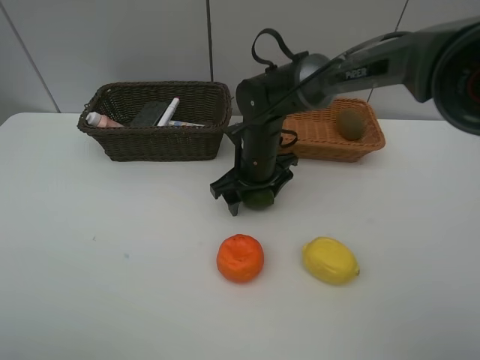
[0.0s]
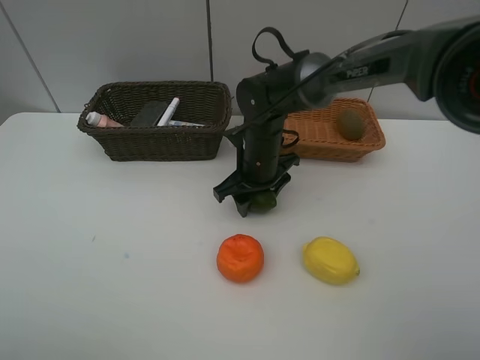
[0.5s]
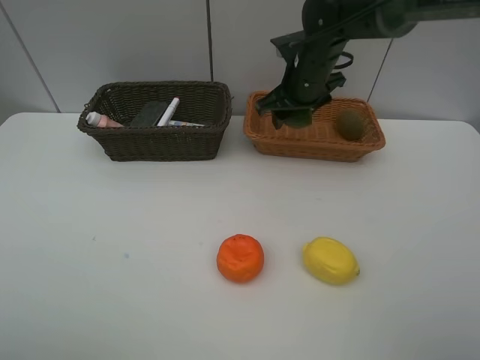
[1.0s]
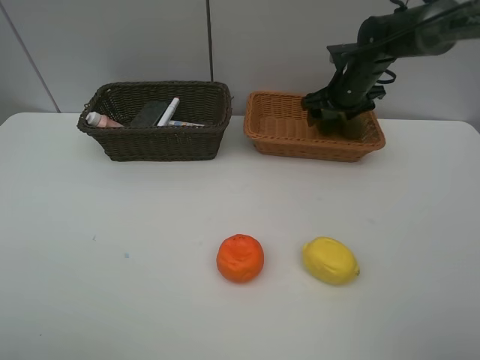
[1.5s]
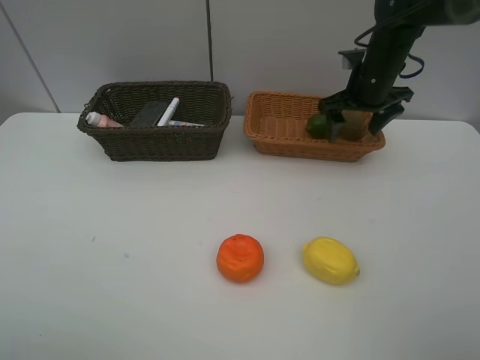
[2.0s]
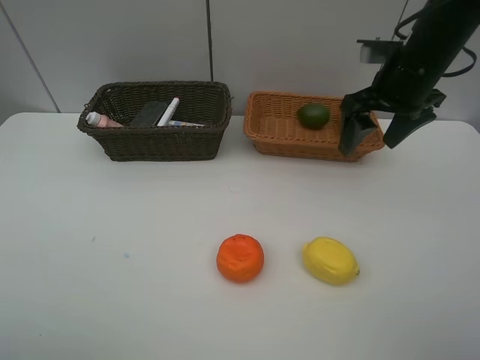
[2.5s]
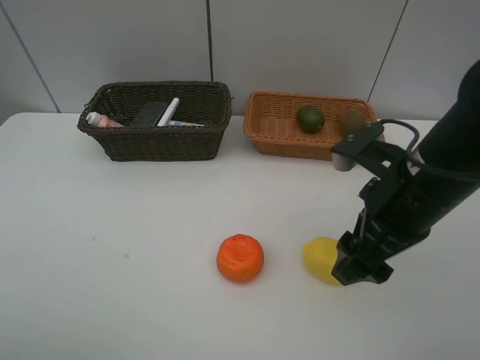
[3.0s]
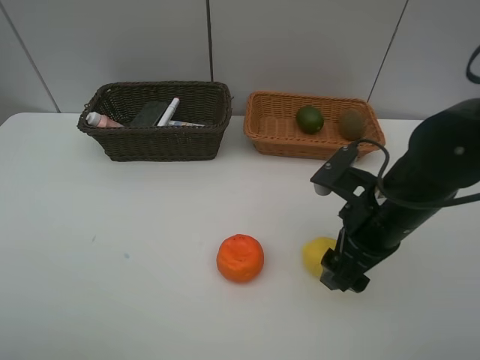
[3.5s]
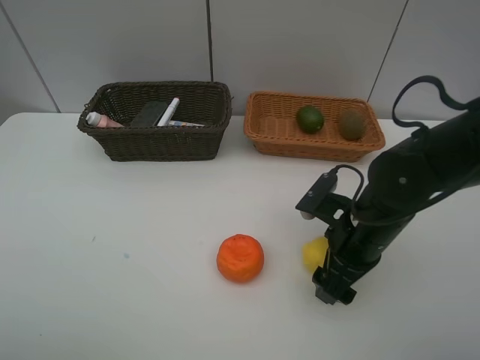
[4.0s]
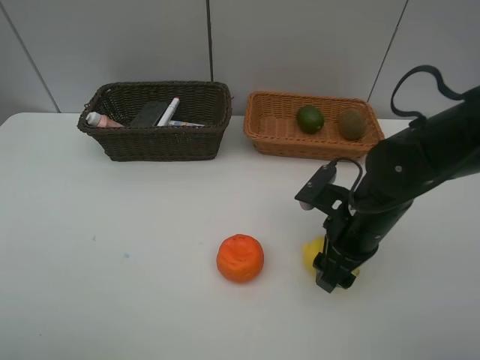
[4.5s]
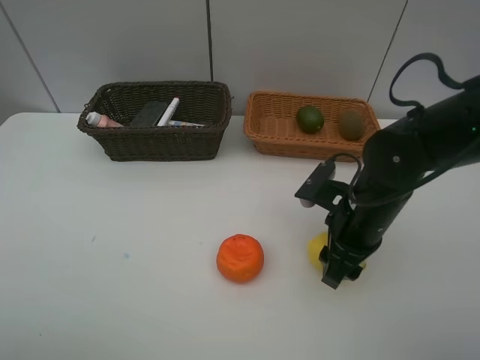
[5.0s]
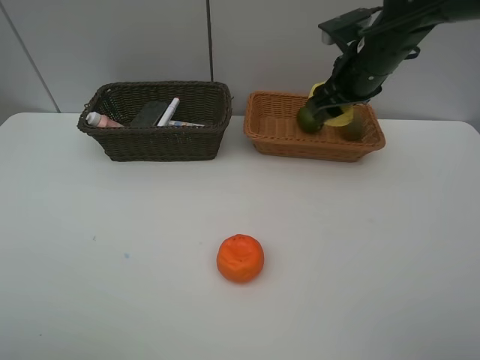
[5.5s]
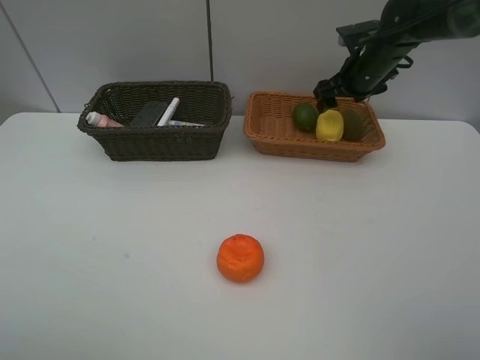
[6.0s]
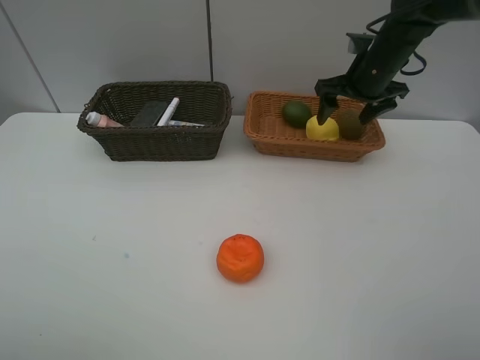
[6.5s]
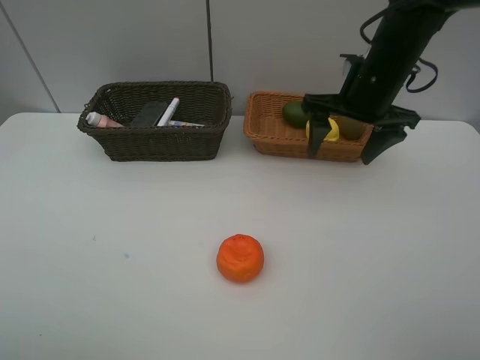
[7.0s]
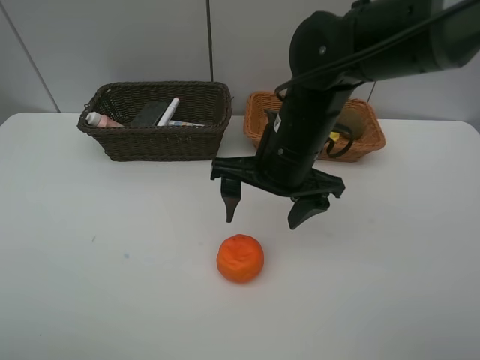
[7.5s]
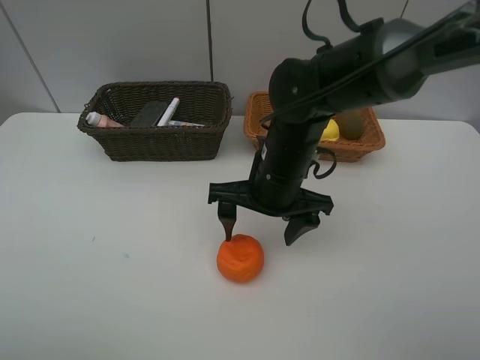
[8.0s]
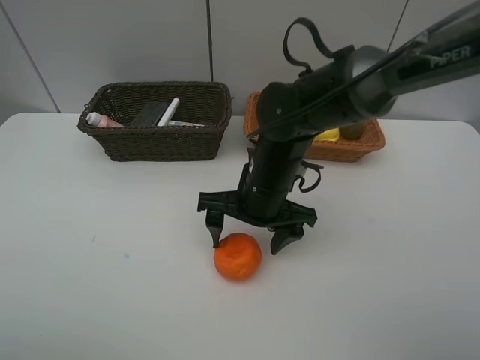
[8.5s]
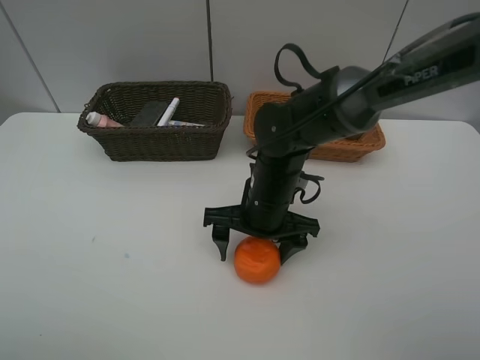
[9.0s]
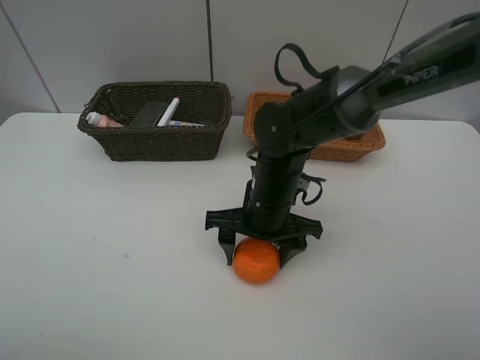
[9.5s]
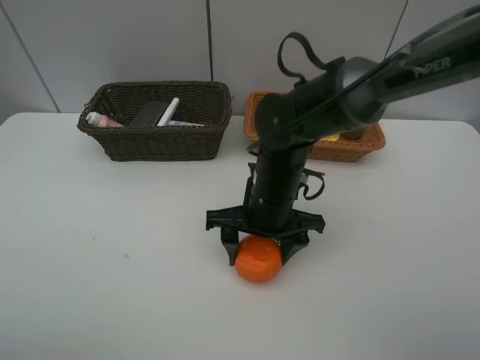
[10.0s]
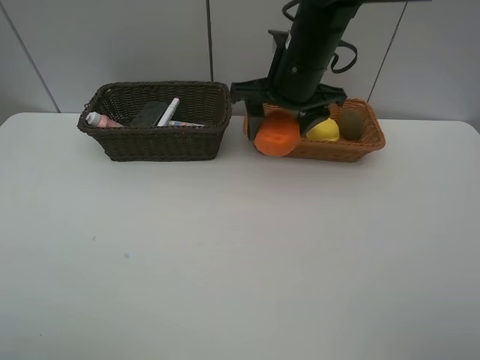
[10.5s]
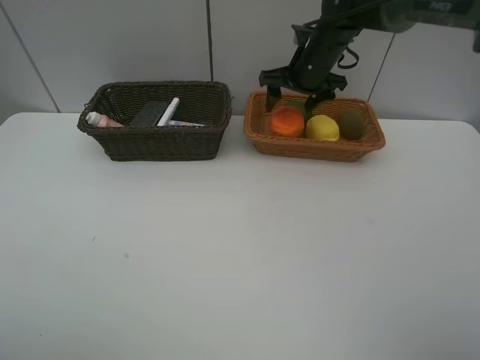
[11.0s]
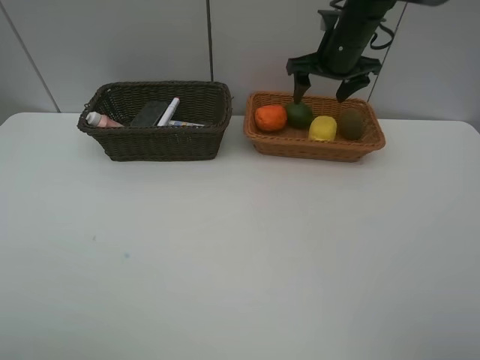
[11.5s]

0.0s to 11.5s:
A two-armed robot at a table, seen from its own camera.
Task of the whole recording: Place multiple objects separately in different baskets.
Step, 1.0s to 1.5s: Place the lime in the light basket with right gripper.
Step, 2.0s to 5.0s: Pick up the lemon with right gripper.
Step, 5.5s to 6.0s: Place the lemon in the light basket with right gripper.
Step, 6.5s to 10.0s: Pick up the orange with right gripper.
Step, 10.5s to 11.0s: Place the orange in the light basket with right gripper.
0.0s to 2.0s: The right gripper moves to the right, upward and forward, approximately 20 cm, and closes, then reopens.
2.0s to 4.0s: The right gripper travels backward and downward by some 25 cm.
4.0s to 6.0s: The right gripper is displaced forward by approximately 25 cm, and closes, then opens again.
6.0s to 7.5s: The right gripper is displaced backward and to the left by approximately 25 cm.
7.5s to 9.5s: The right gripper goes roughly 10 cm downward.
9.5s to 11.5s: The right gripper moves forward, upward and to the right, about 30 cm.

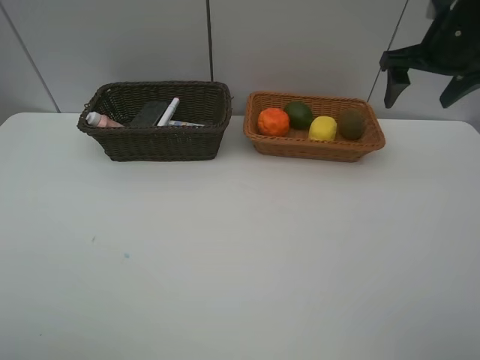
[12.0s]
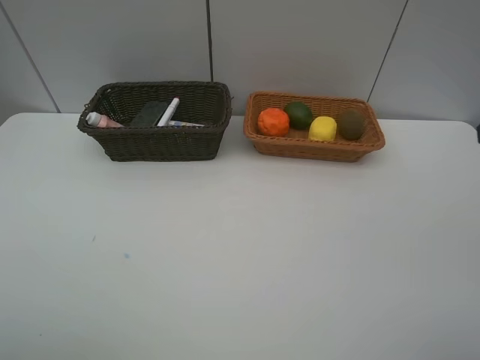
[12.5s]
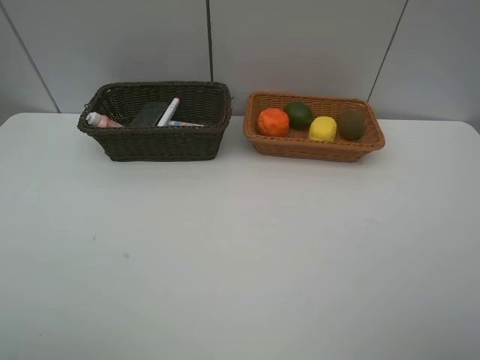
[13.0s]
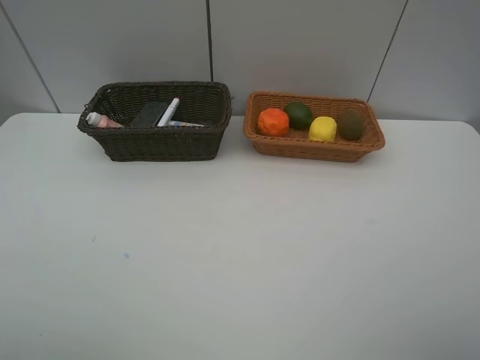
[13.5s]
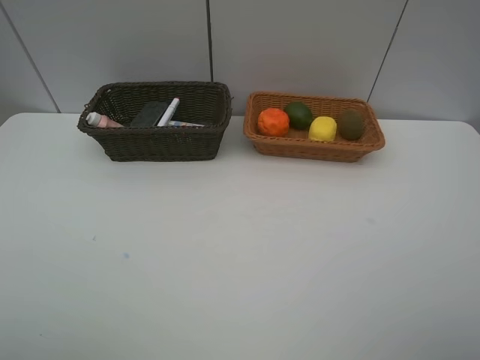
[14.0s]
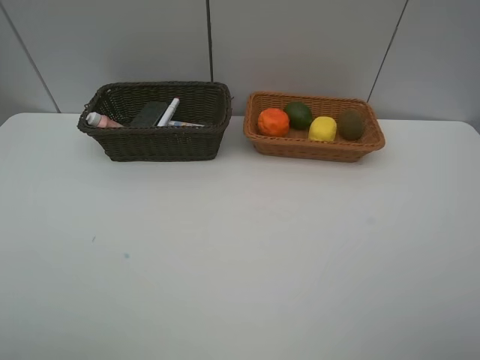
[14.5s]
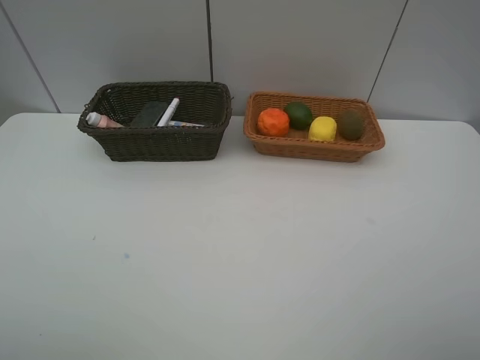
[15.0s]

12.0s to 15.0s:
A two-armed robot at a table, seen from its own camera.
Task of the whole recording: Place multiple objects separately in different baskets.
12.0s to 13.5s: The right gripper moves backward, about 35 cm.
13.5s to 15.0s: Both grippers stay about where they are.

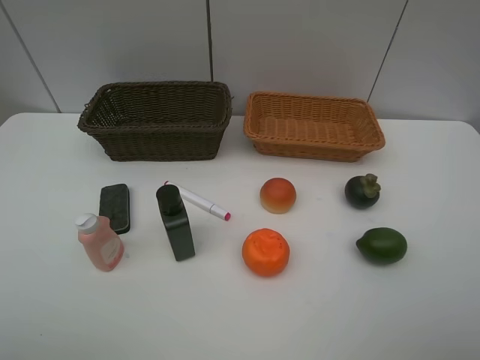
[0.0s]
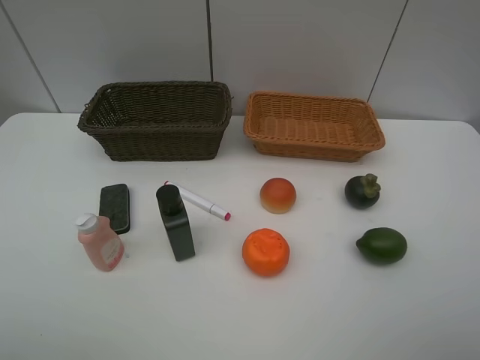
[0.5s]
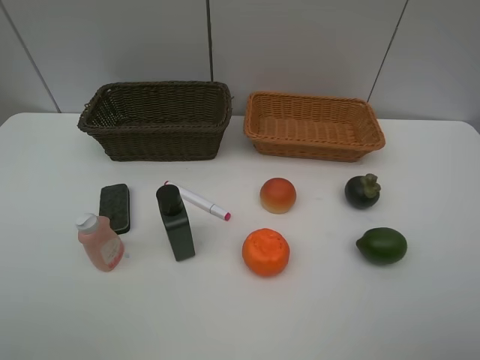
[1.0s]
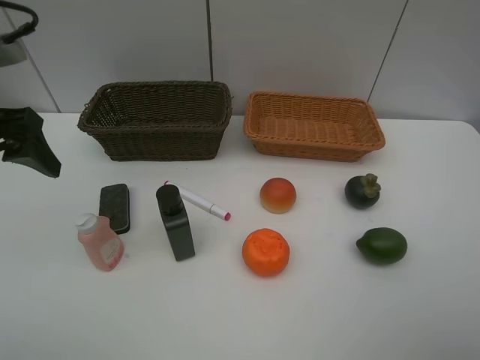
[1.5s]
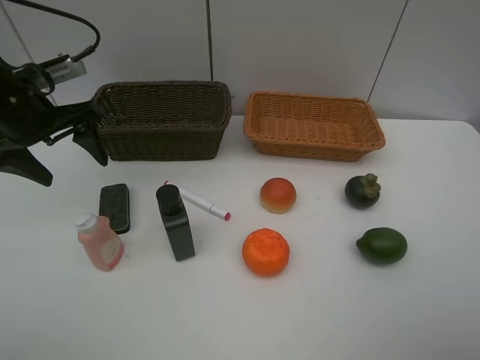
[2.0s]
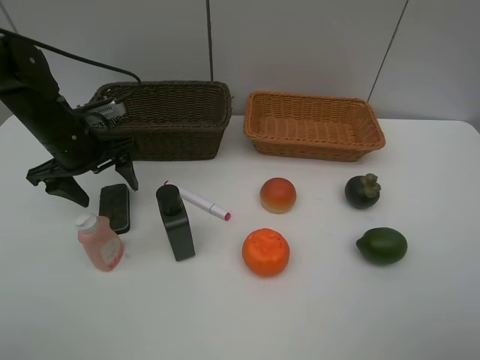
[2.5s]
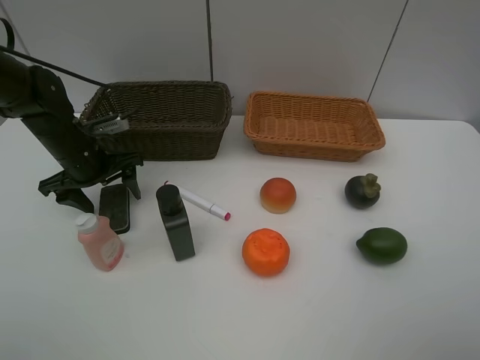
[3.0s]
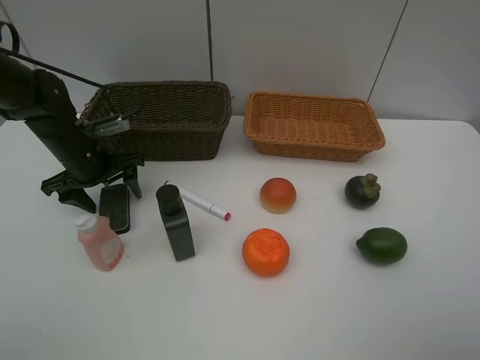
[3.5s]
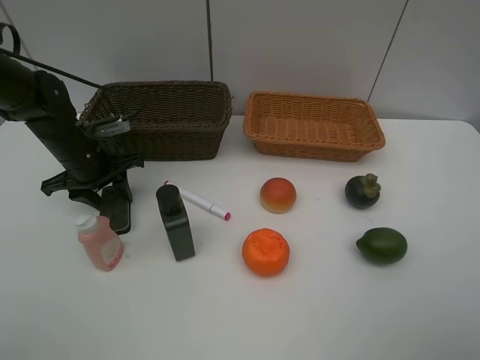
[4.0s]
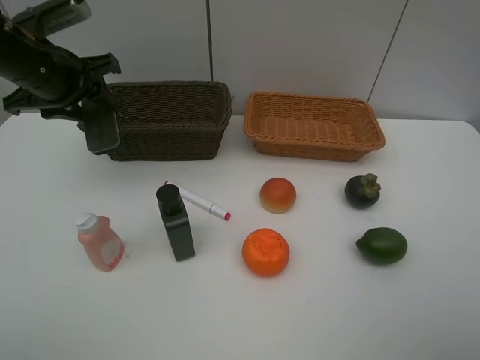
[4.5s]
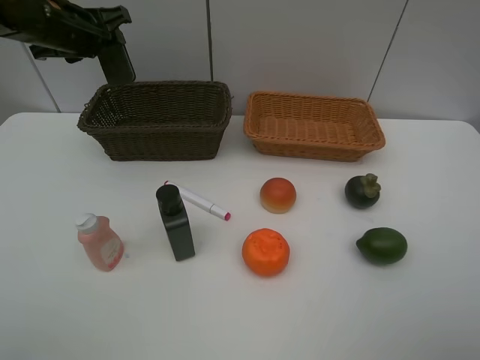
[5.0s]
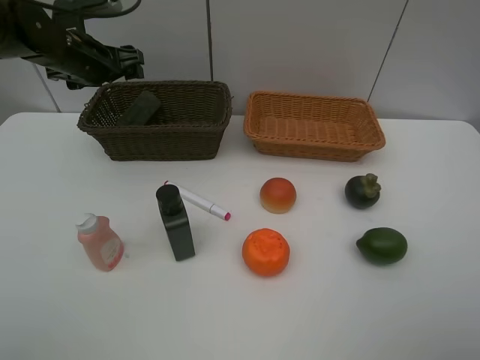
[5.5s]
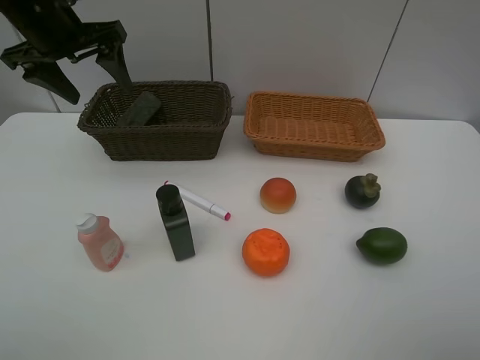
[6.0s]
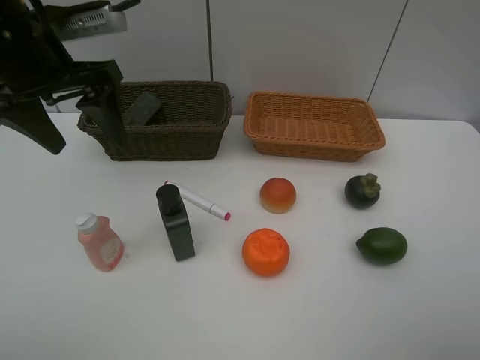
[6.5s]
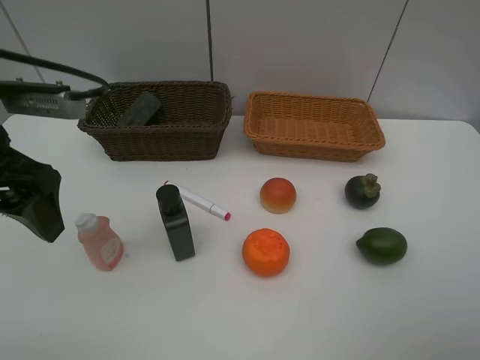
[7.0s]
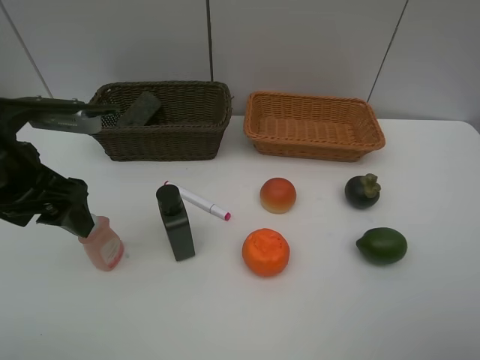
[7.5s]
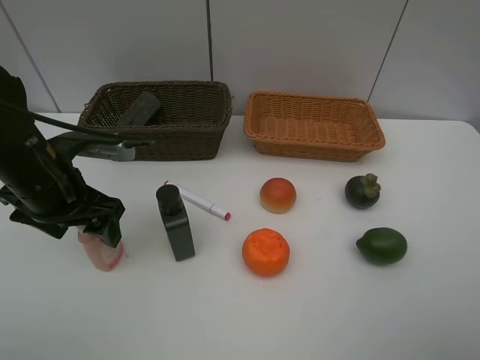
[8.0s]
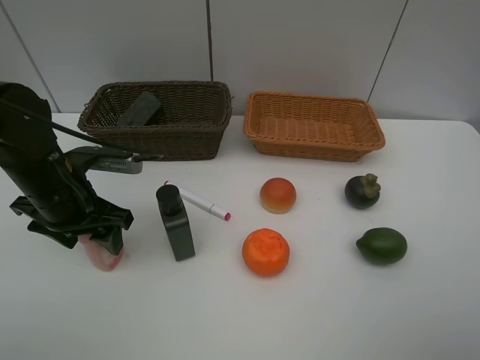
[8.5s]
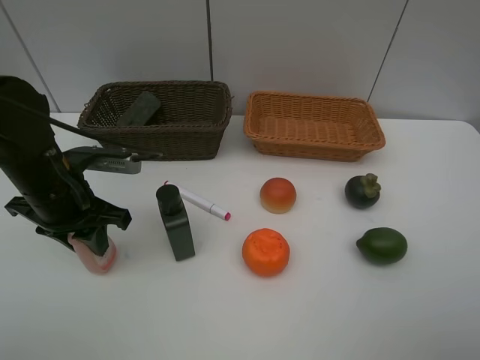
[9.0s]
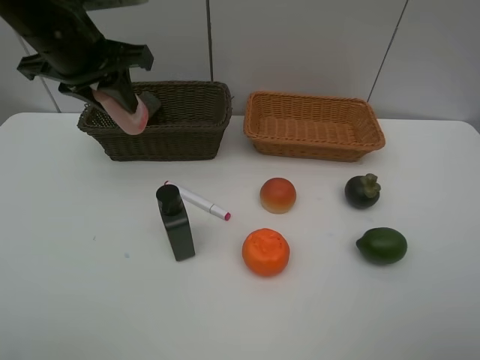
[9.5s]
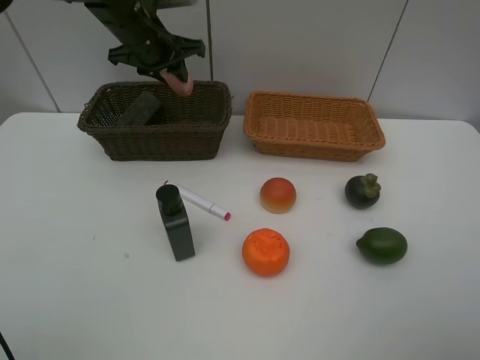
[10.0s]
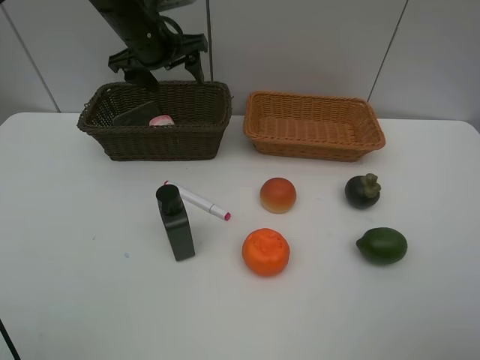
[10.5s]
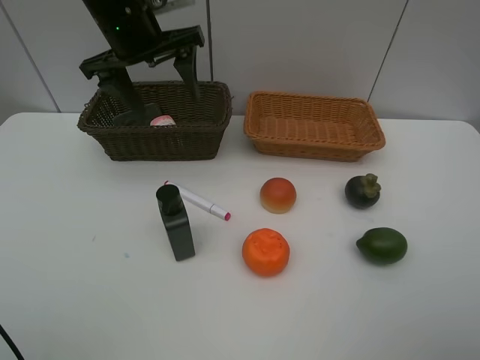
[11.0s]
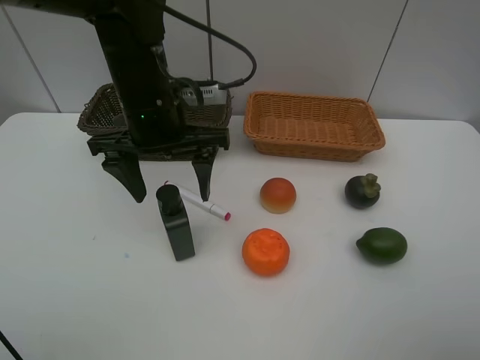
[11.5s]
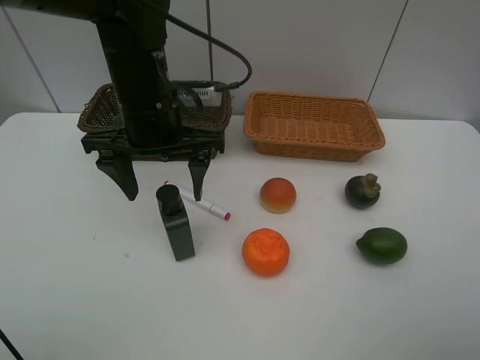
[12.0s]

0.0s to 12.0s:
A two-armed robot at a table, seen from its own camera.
Task of the whole recording: Place multiple objects separately in different baskets.
Step, 0.0s to 4.0s: Pick up blackboard eraser with left gripper.
Step, 4.5s to 5.5s: Place the blackboard eraser in the dark basket with left gripper.
Step, 6.0s to 9.0s: Pick up the laundry detergent with left gripper.
Step, 9.5s to 10.0s: Place the laundry detergent in the dark basket with left gripper.
0.0s to 2.0s: The left gripper moves forward, roughly 30 cm.
2.0s to 4.0s: The left gripper heads downward, covering approximately 10 cm, and closes its fingers.
4.0s to 6.0s: The left gripper moves upward, approximately 20 cm, and opens.
6.0s to 8.0s: The left gripper moves backward and downward, approximately 20 cm.
8.0s to 10.0s: The left gripper goes some 20 cm forward, and closes.
10.0s to 12.0s: The left gripper travels backward by about 15 cm, and opens up.
